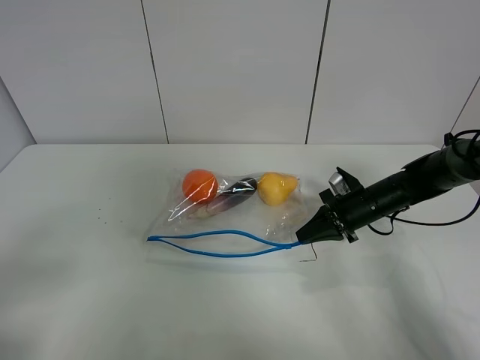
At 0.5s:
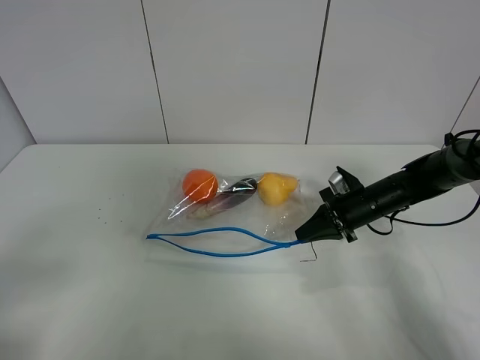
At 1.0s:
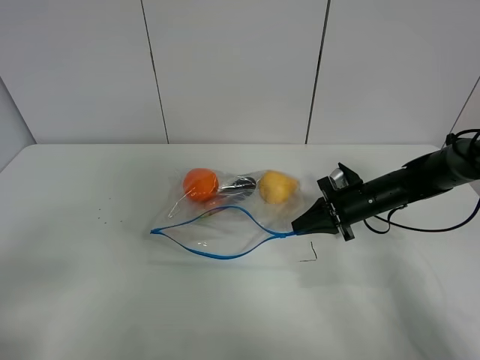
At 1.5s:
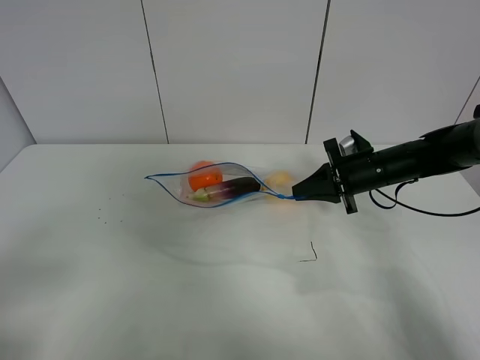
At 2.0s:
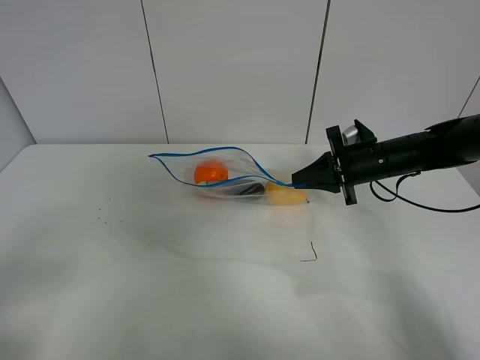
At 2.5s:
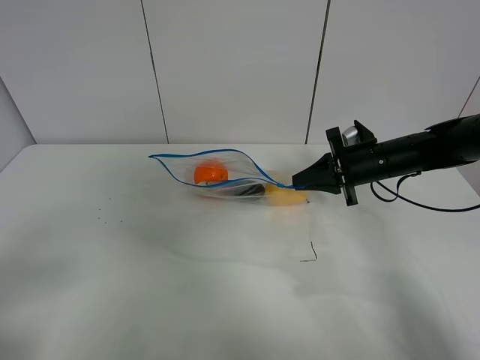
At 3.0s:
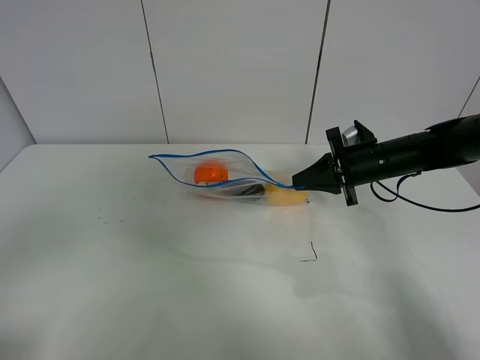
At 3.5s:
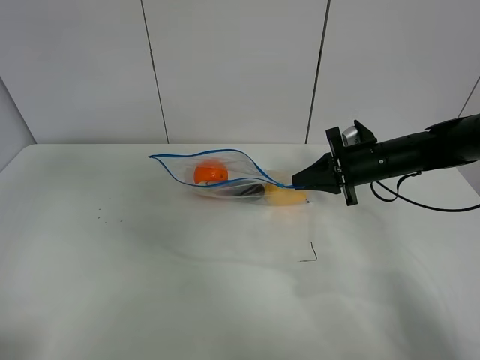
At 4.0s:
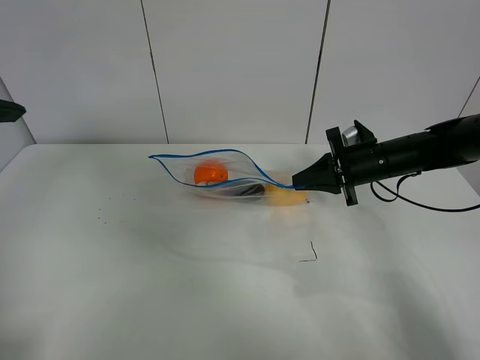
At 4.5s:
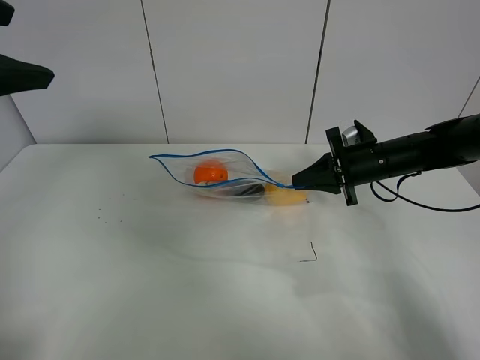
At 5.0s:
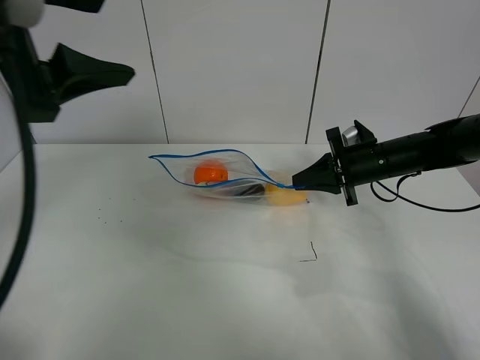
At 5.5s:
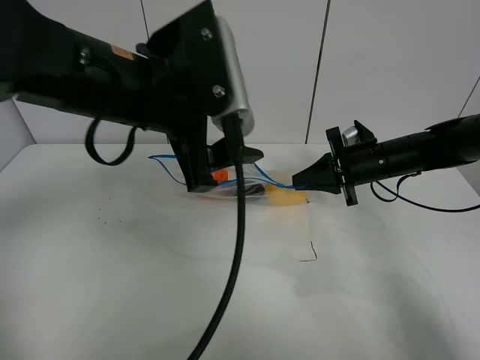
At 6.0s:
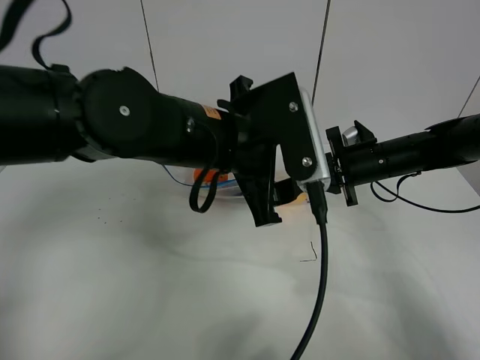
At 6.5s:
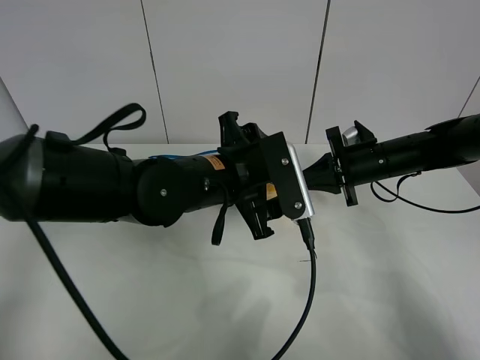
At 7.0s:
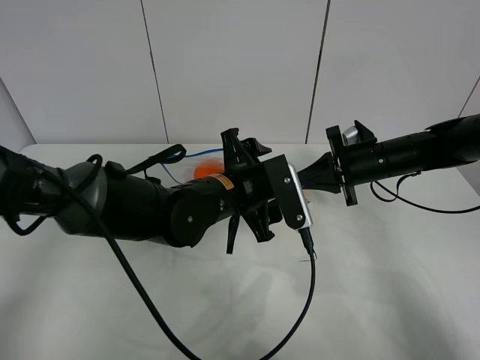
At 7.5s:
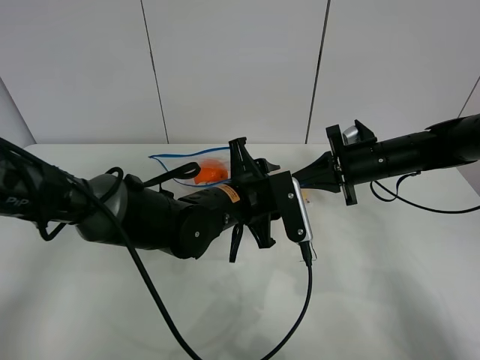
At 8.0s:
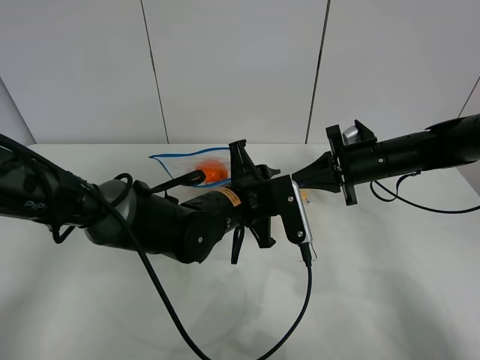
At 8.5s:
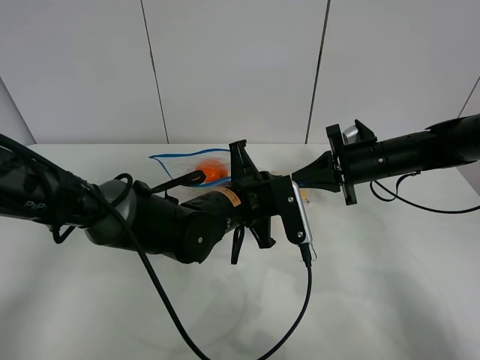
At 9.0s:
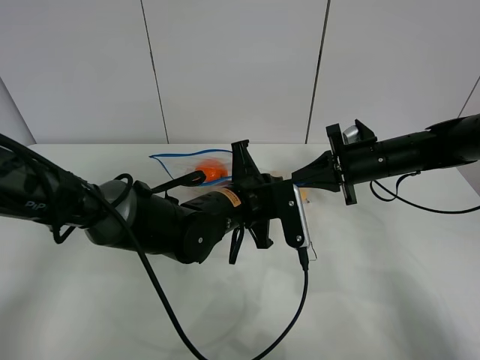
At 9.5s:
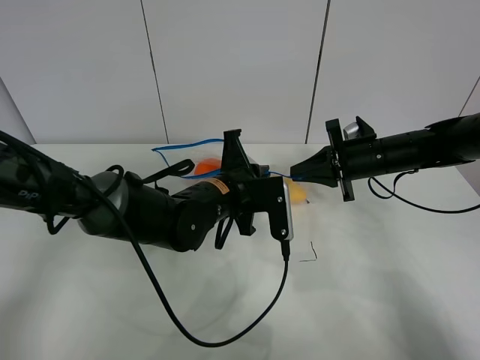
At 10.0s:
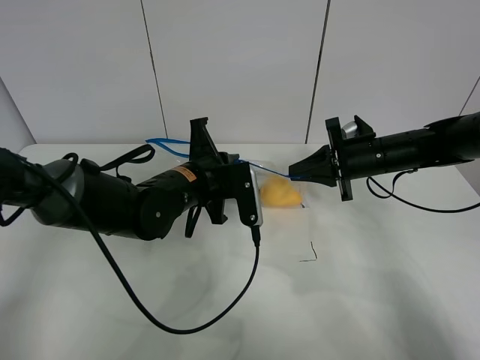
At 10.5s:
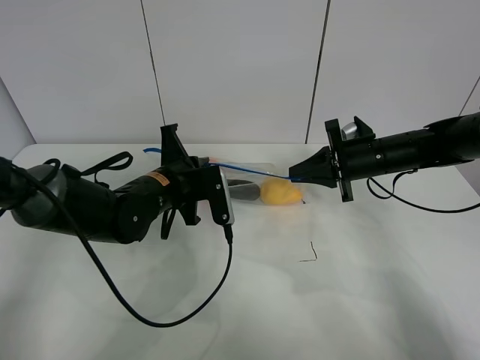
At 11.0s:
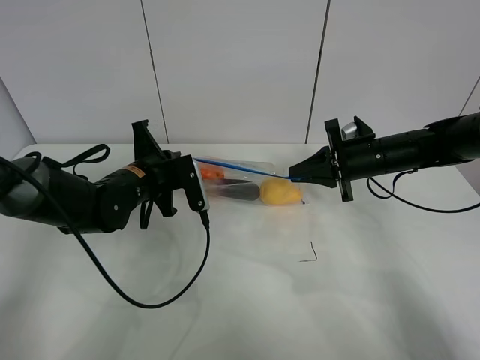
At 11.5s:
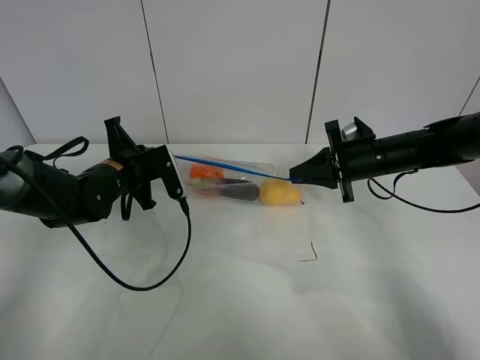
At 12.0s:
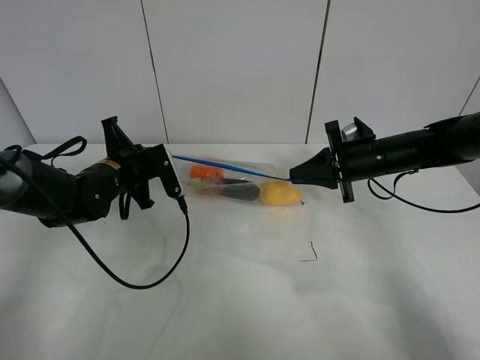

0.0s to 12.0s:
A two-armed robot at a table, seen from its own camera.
Step, 0.0s to 2.0s: Lift the fruit bag with your right gripper.
0.0s to 2.0s: The right gripper goes some 10 cm upward.
2.0s to 4.0s: The left gripper moves forward and upward, some 25 cm.
4.0s to 6.0s: The left gripper goes about 30 cm to the right and downward.
6.0s to 8.0s: The left gripper moves downward, about 10 cm, and closes its fingers.
8.0s to 10.0s: The left gripper heads to the left, covering approximately 5 cm, and closes.
10.0s to 12.0s: The left gripper moves to the left, some 10 cm.

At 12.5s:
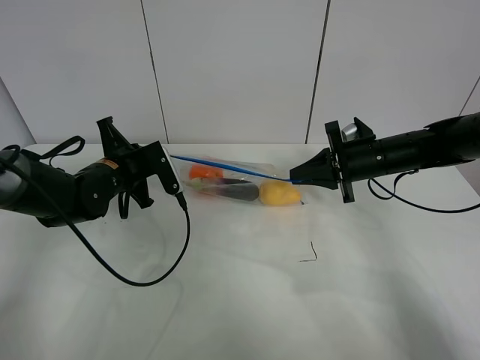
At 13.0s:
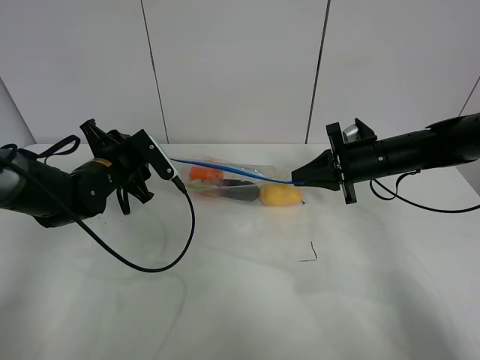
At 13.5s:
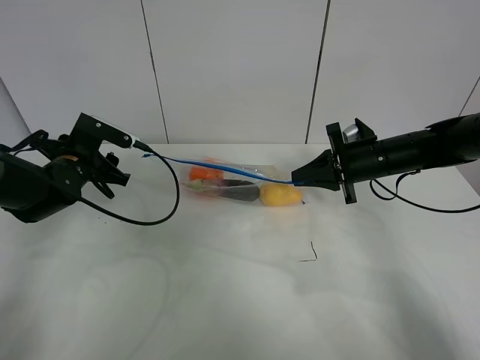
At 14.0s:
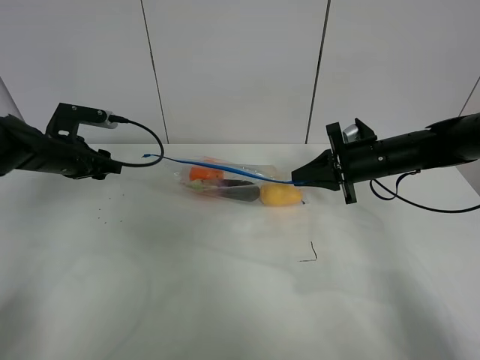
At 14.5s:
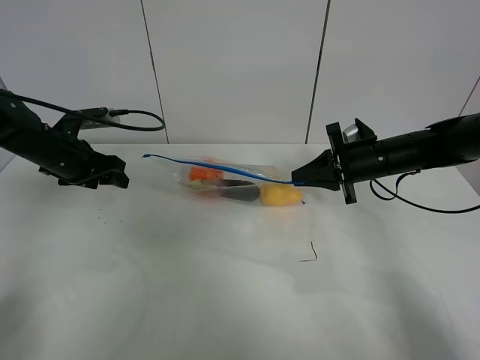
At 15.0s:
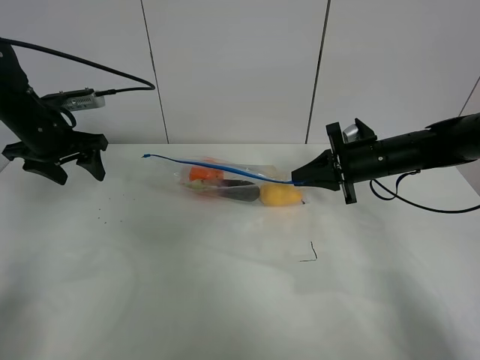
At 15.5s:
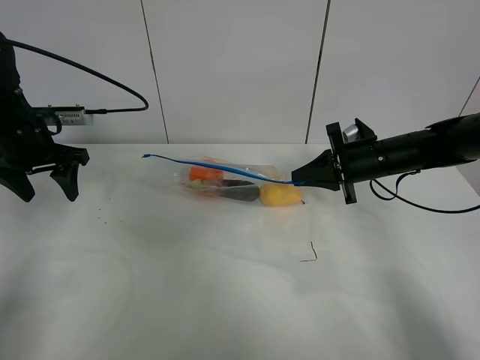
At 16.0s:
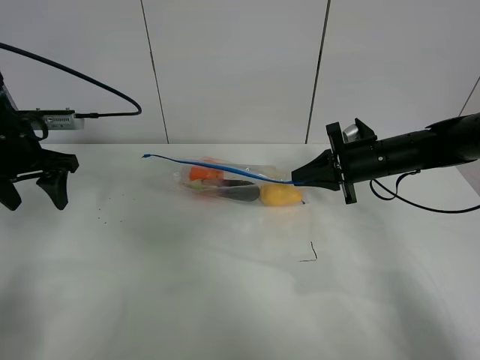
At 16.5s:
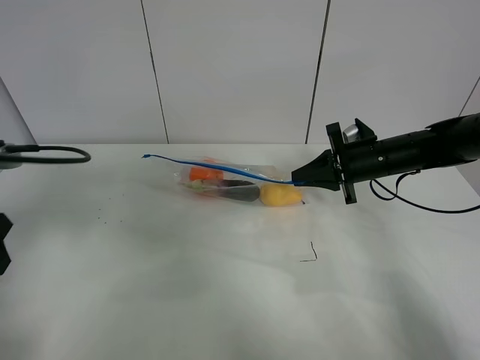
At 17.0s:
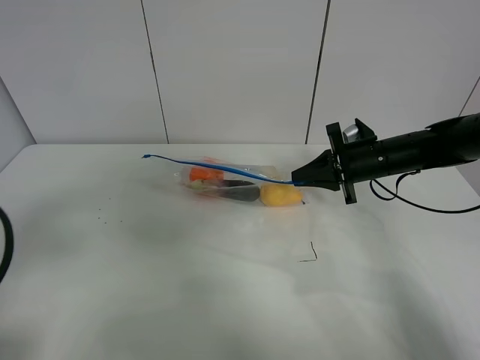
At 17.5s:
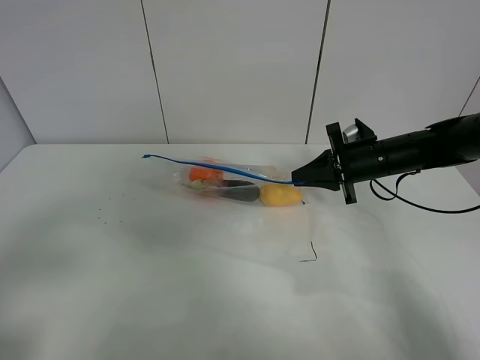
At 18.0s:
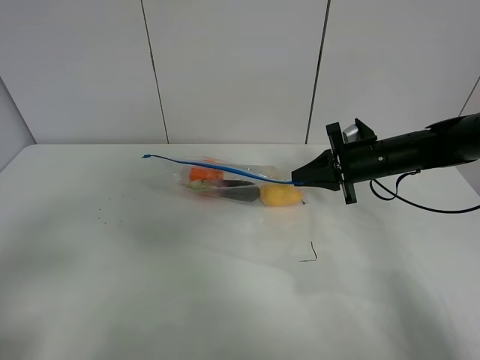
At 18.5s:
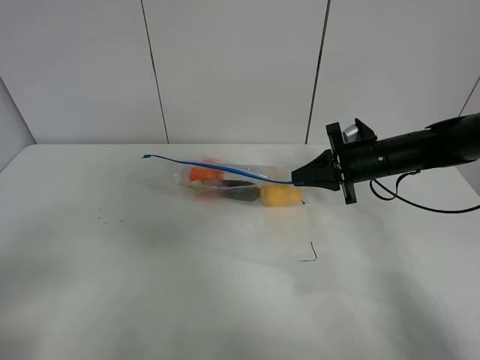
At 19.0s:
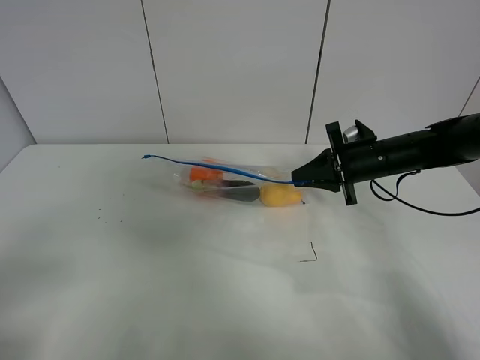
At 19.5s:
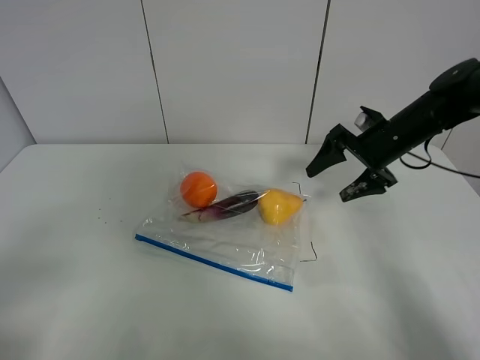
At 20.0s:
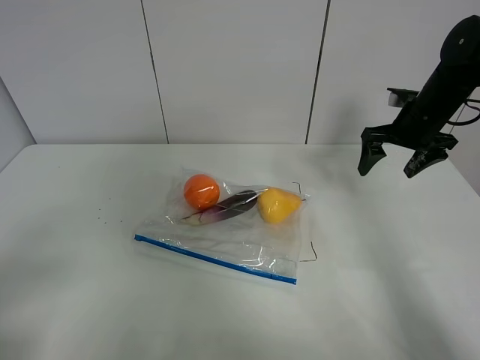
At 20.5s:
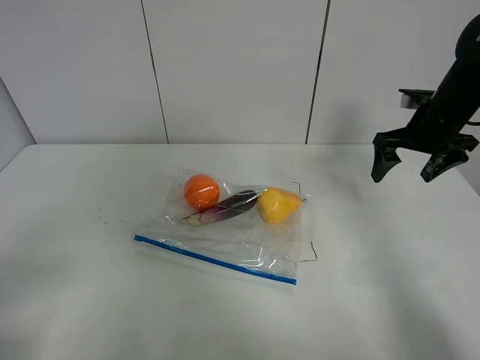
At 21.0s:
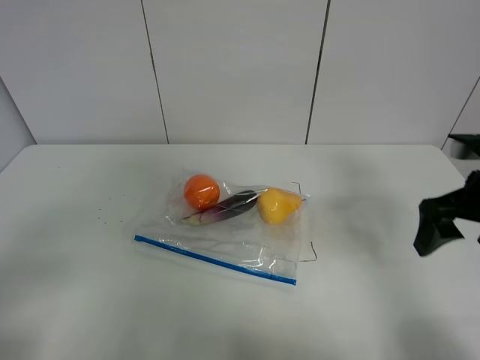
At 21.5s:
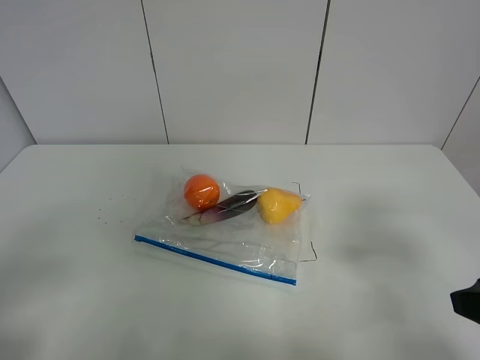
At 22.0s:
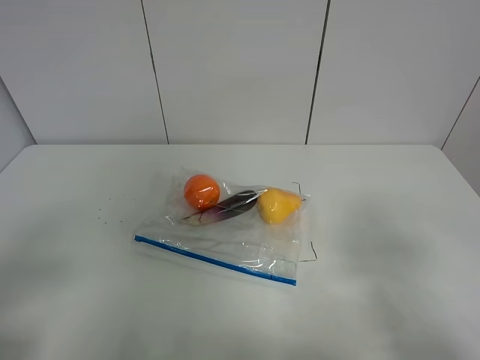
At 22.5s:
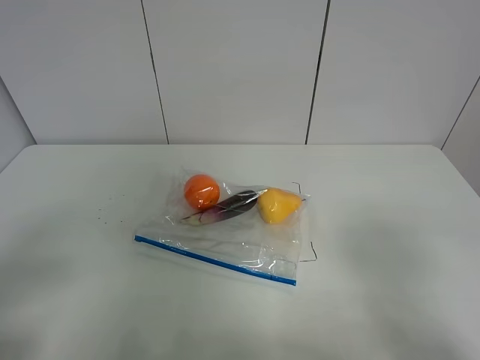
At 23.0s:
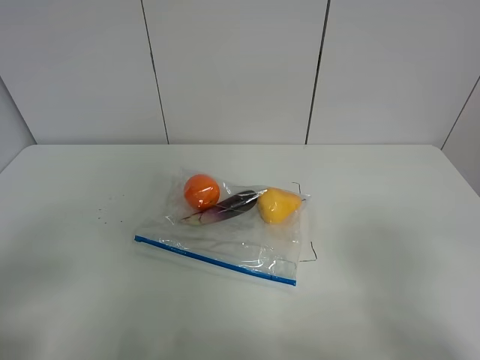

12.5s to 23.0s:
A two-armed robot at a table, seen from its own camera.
12.5s to 14.5s: The left gripper is displaced to the left by some 10 cm, and opens.
14.5s to 16.5s: The left gripper travels backward and upward by about 20 cm.
16.5s to 19.0s: The left gripper shifts some 20 cm backward.
19.0s to 21.0s: The right gripper heads backward, upward and to the right, covering some 20 cm, and opens its fingers.
21.0s to 23.0s: The right gripper heads backward, covering approximately 20 cm.
